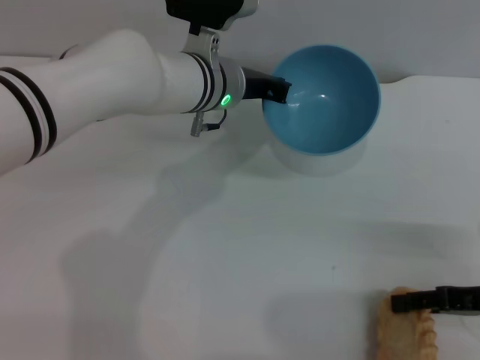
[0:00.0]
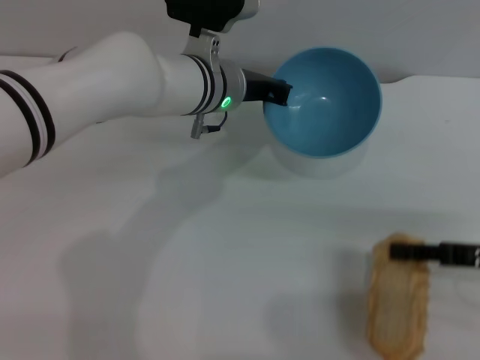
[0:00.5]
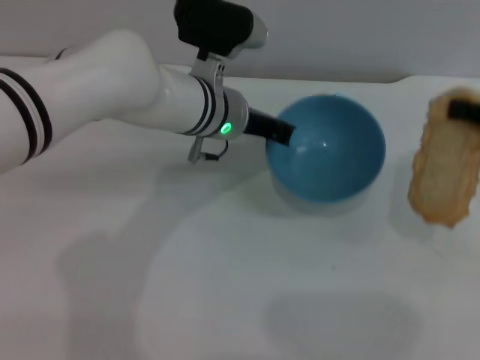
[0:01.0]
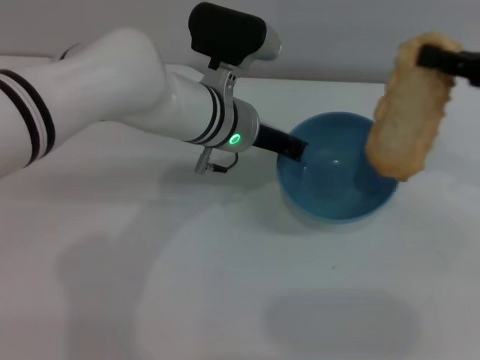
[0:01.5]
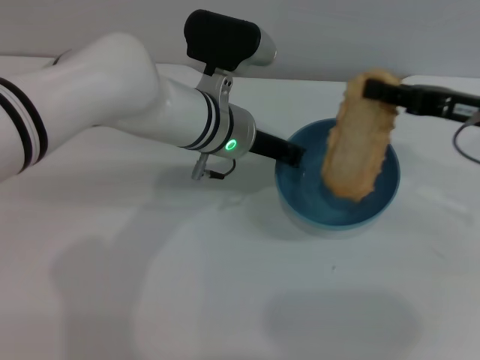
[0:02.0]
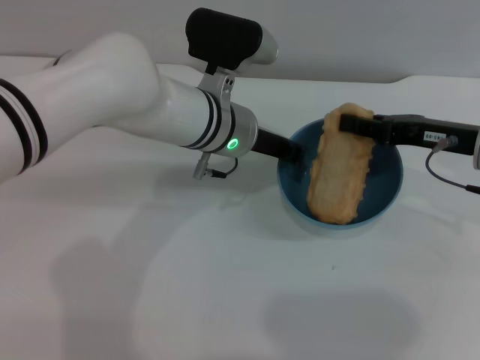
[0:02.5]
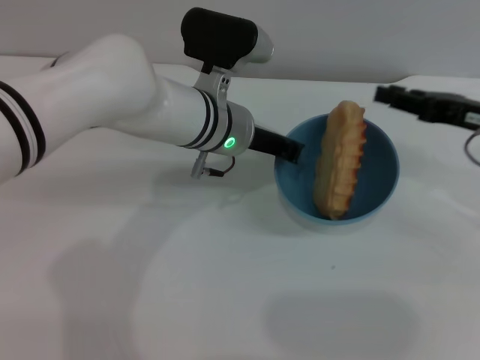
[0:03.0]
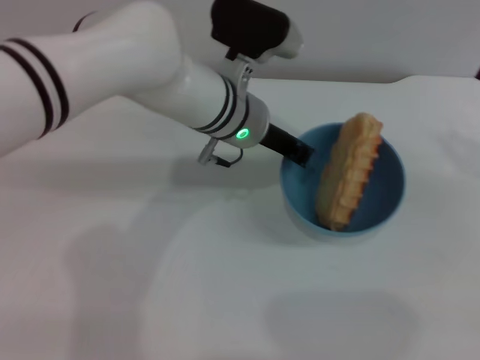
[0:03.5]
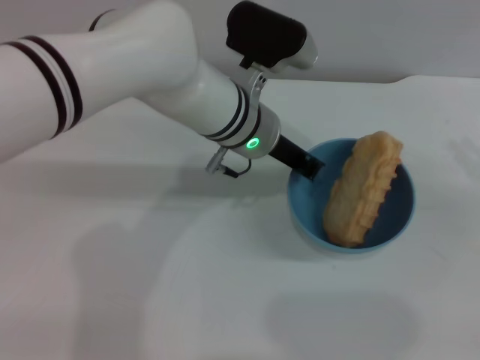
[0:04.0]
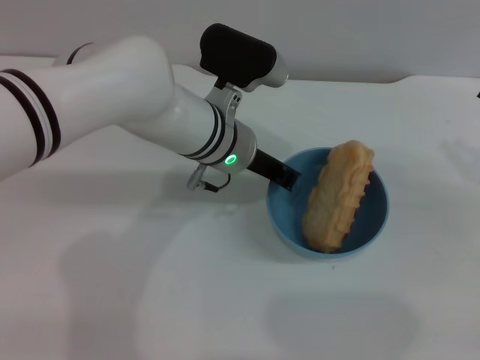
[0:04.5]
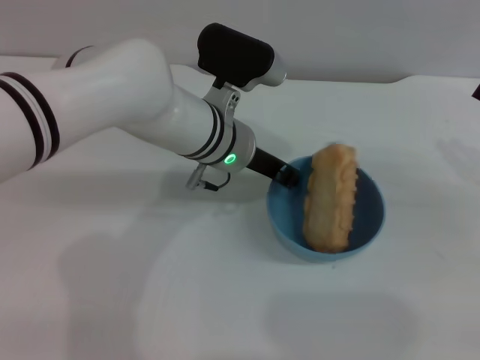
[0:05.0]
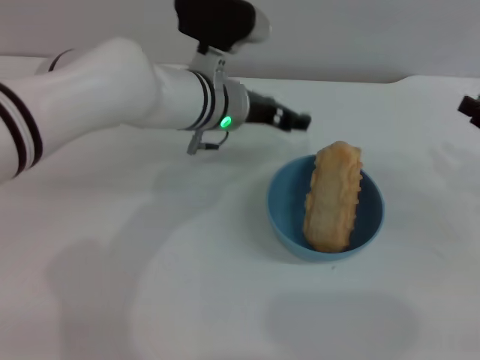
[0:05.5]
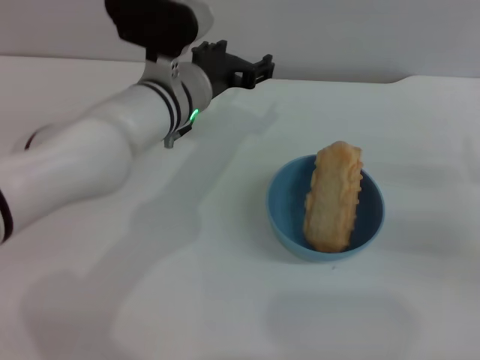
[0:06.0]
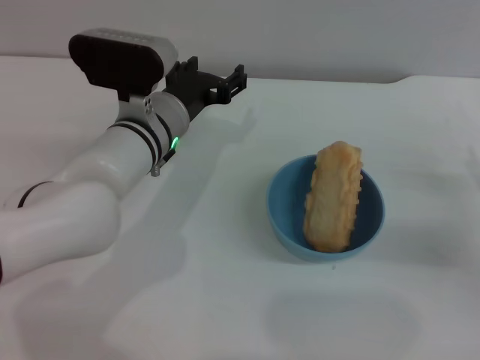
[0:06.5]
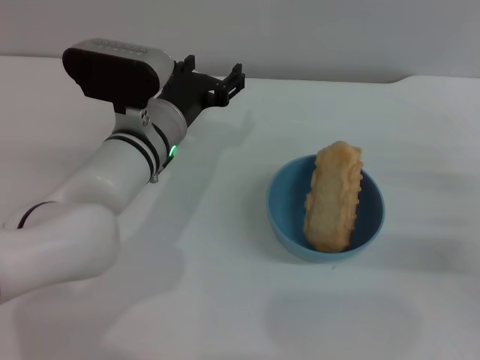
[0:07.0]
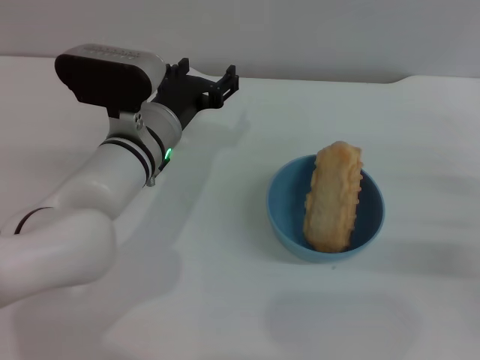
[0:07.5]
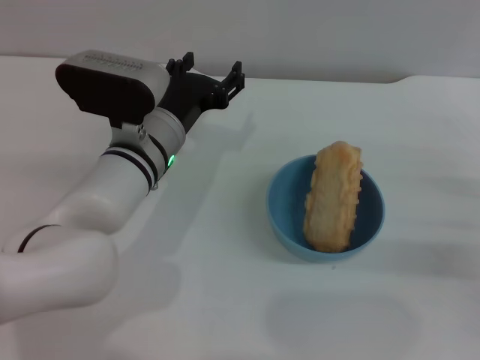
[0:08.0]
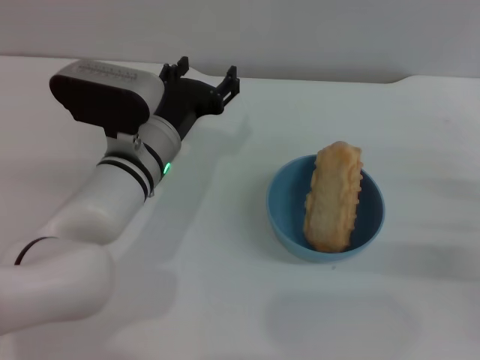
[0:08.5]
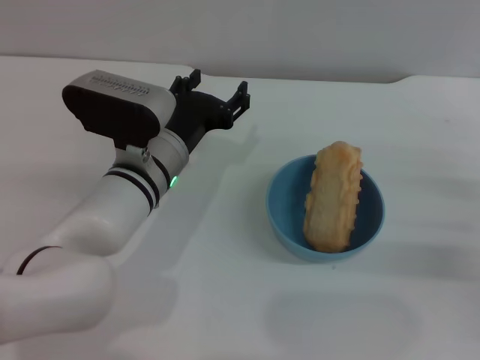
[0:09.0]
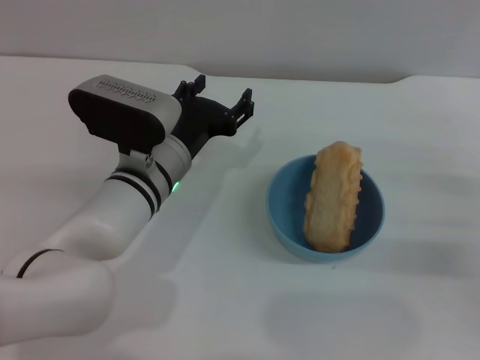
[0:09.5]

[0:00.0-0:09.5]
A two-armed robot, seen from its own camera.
Task of the whole recording: put the bread into the blue bowl and pour it out repeatedly.
Step, 0:01.0 to 0:03.0: Place the bread into the bowl.
Step, 0:03.5 to 0:05.0: Place the bowl on the table.
0:00.0 to 0:02.0: The right gripper moves forward and upward, about 15 cm, and closes.
0:02.0 to 0:04.0: The right gripper shifts some 10 cm to the right and backward.
0:04.0 to 0:05.5: The left gripper opens.
0:05.5 to 0:07.5: The left gripper goes approximately 5 cm to the left, while the right gripper shifts approximately 5 cm downward, and opens up.
0:07.5 to 0:09.5: The grippers stay close to where they were, moving slightly.
